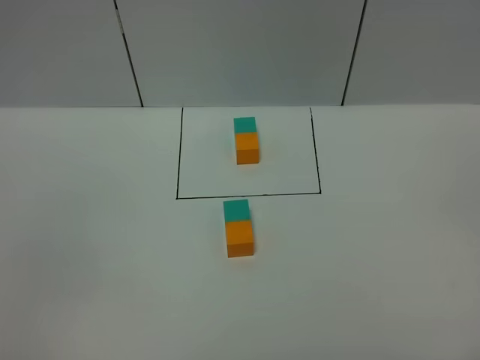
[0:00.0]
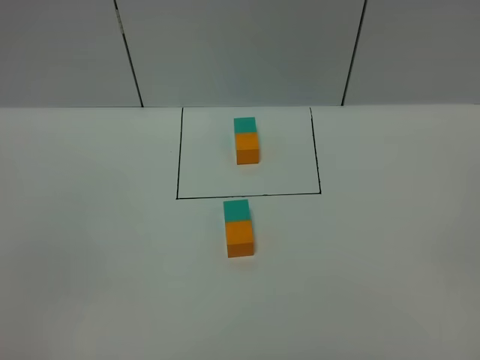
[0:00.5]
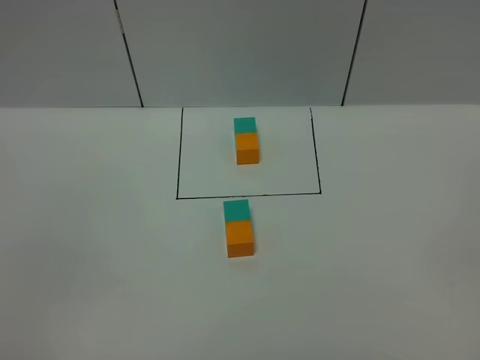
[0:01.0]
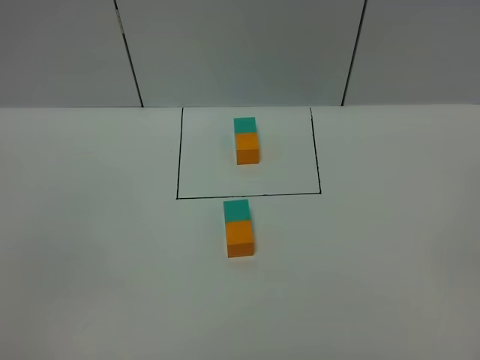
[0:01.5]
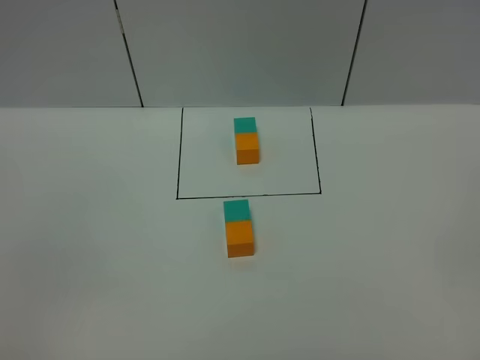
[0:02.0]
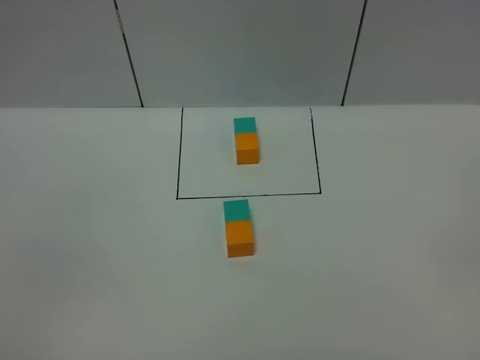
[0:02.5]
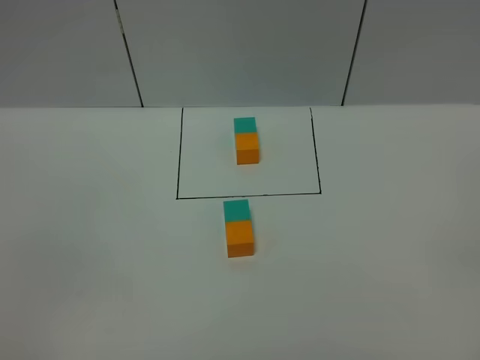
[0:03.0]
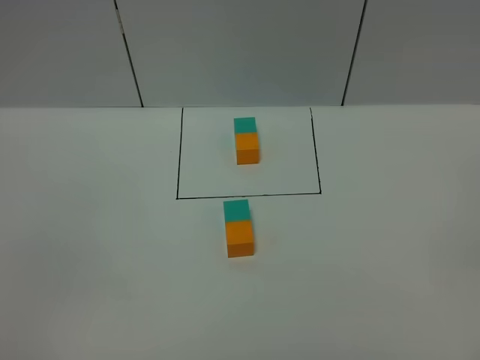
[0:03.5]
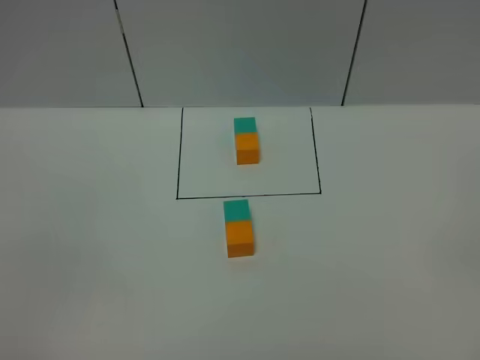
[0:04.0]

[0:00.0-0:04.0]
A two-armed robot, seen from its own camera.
Task of the whole recording: According to the building block template in front, assemble the scattered blocks together.
0:02.0 to 0:04.0: Both grippers stay about where they are.

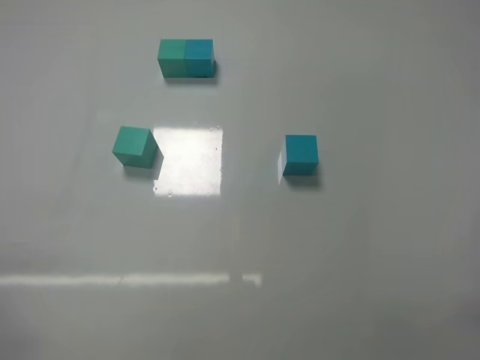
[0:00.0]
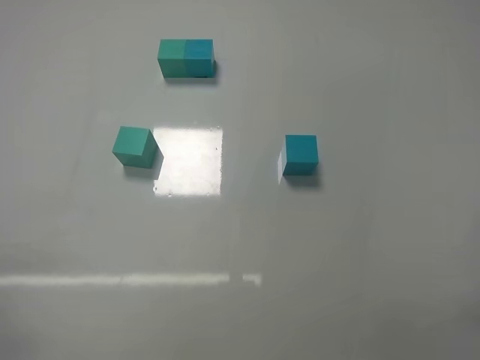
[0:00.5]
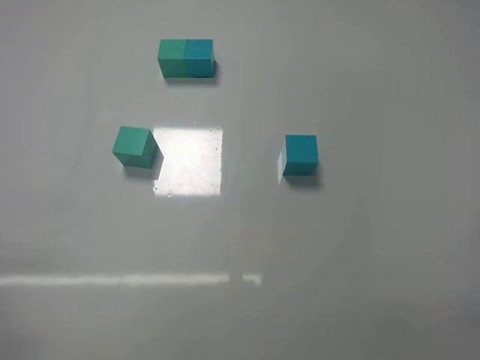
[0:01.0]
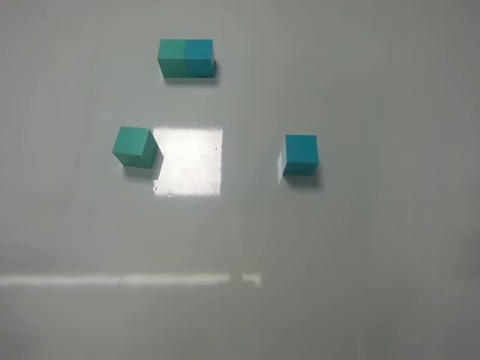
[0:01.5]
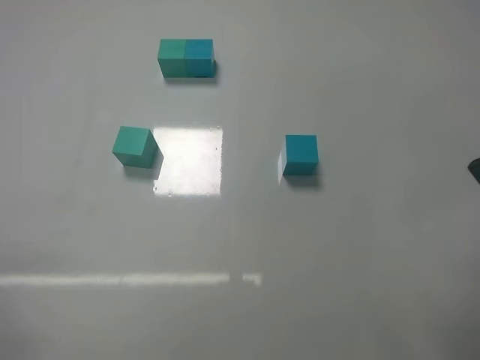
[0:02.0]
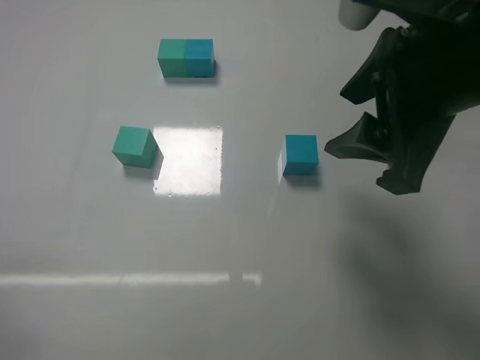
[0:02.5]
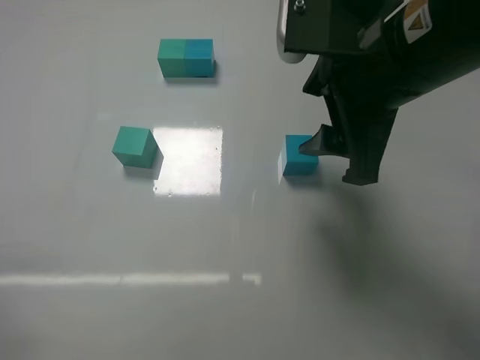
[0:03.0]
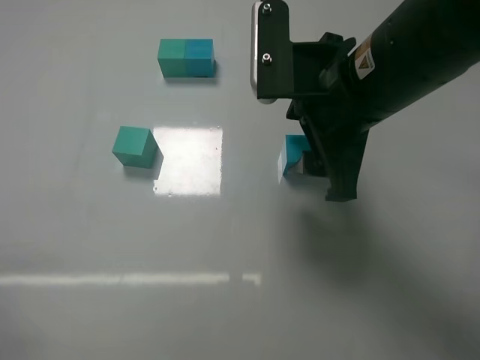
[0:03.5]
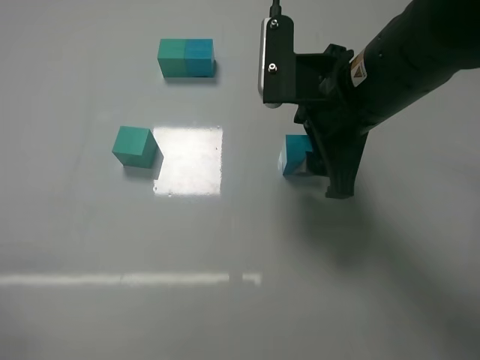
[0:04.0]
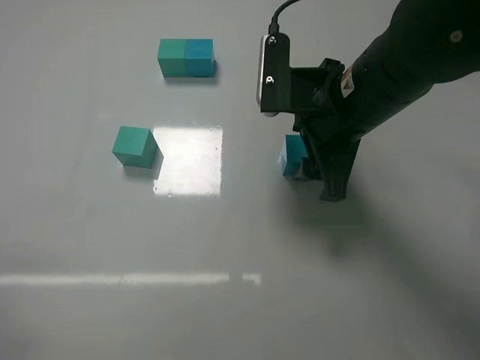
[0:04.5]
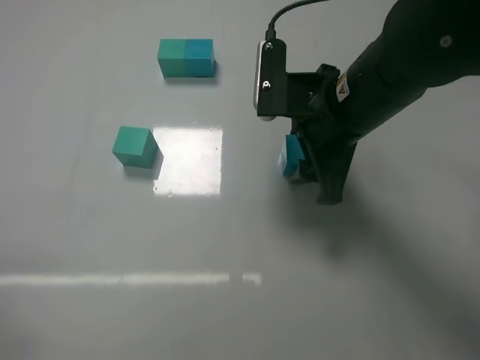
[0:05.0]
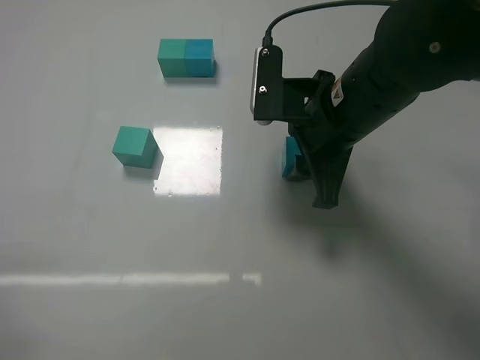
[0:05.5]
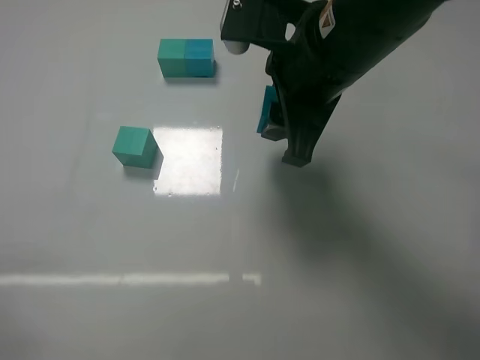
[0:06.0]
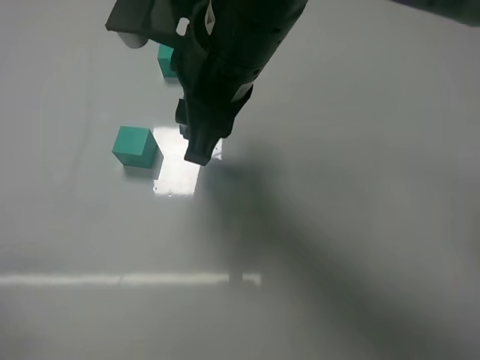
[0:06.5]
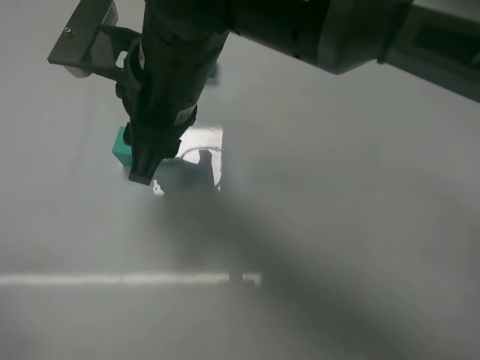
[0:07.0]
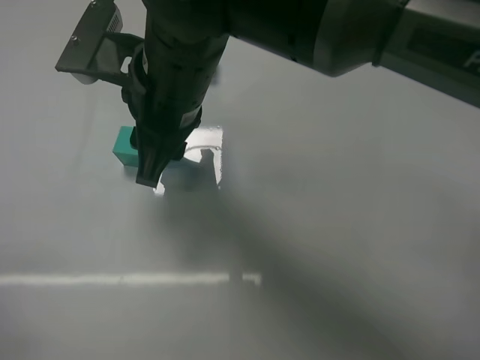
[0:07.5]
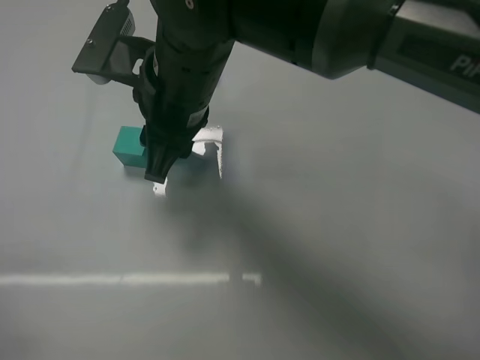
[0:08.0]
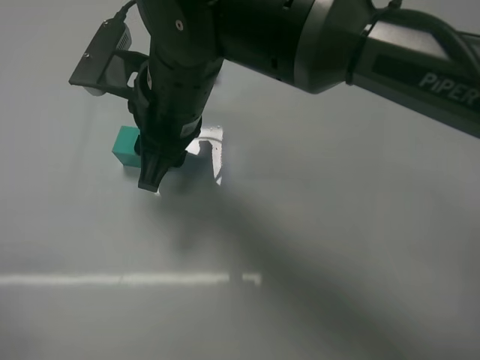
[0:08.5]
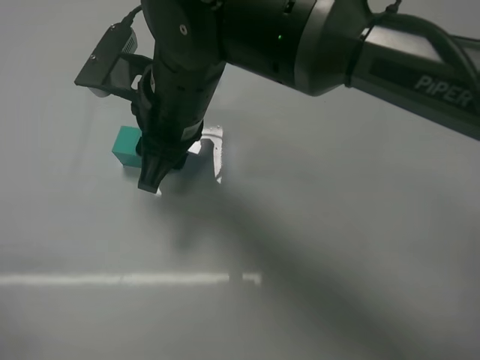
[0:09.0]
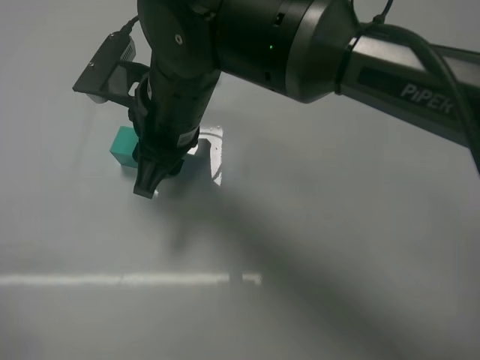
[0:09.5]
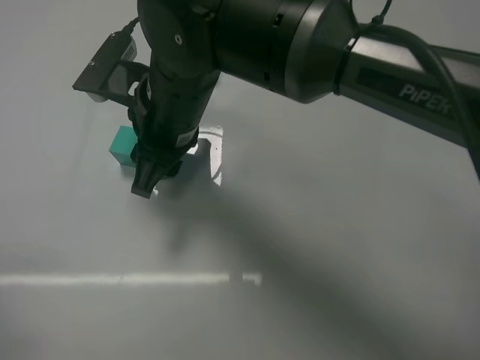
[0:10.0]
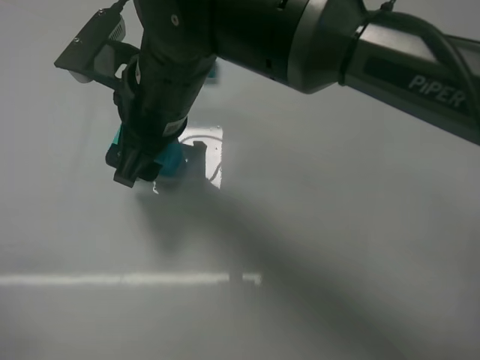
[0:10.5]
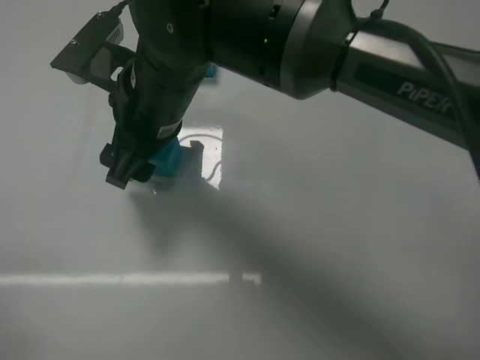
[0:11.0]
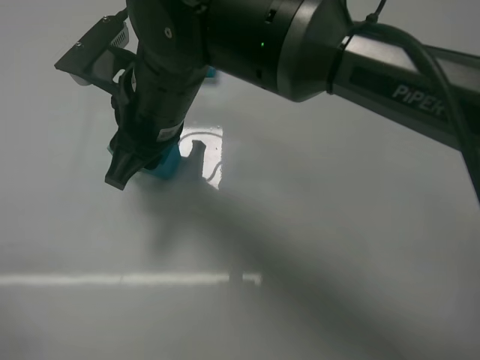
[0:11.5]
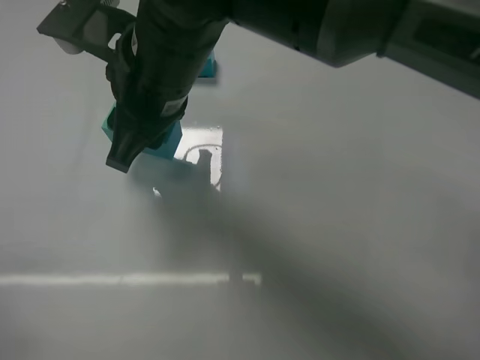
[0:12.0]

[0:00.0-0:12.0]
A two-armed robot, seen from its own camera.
Task of the whole recording: According to the building block template in front, assemble the scattered blocks together.
Step, 0:00.0 to 0:05.5: Grasp the blue block with right gripper.
Step, 0:06.0 to 0:10.0: Put the blue cube on the right of the green cube with the right gripper.
0:02.0 to 0:04.0: The right gripper heads forward and to the left, covering roughly 20 cm.
0:04.0 to 0:06.0: The right gripper ends up about 5 cm from where it was, and closes up.
0:06.0 to 0:08.0: The right gripper goes approximately 15 cm to the left.
0:08.0 to 0:10.0: The grippers stay close to where they were, moving slightly.
0:10.0 to 0:12.0: The right gripper changes place by about 5 cm, and opens, then closes again.

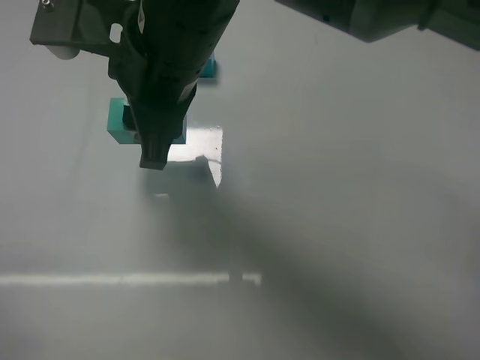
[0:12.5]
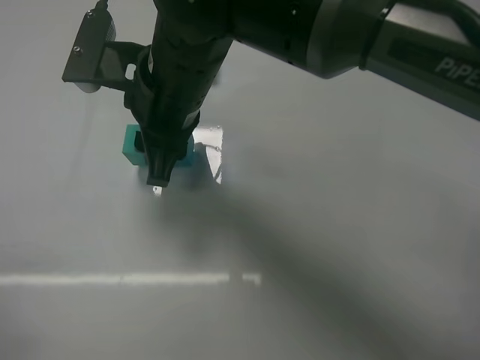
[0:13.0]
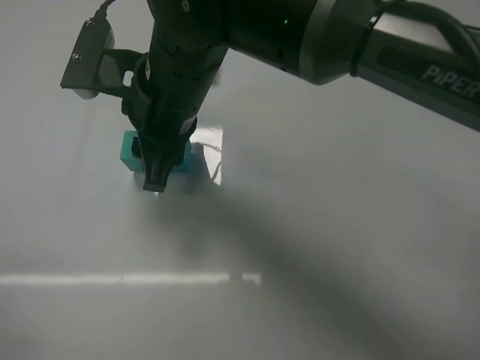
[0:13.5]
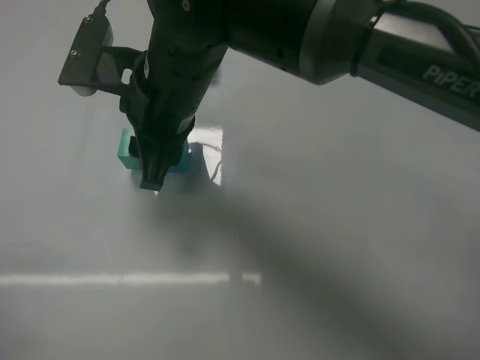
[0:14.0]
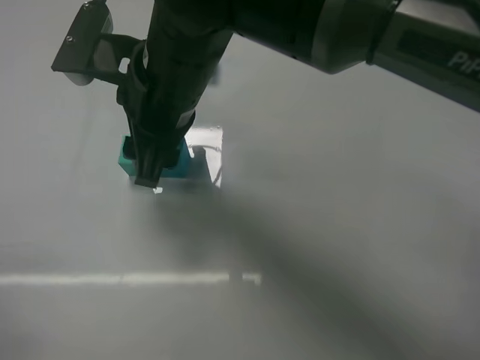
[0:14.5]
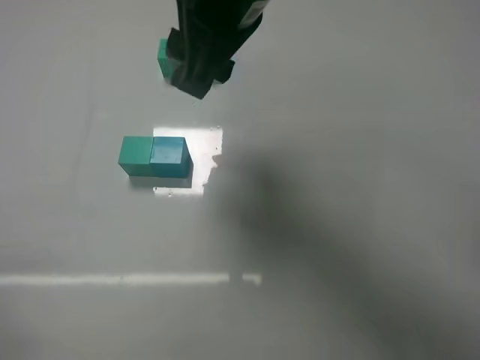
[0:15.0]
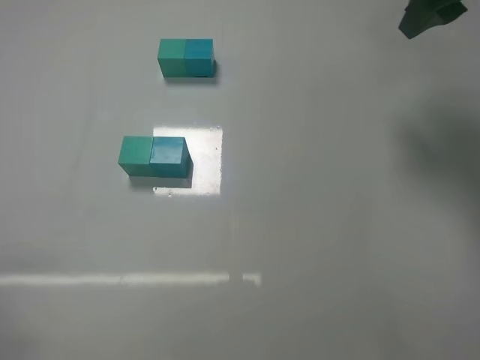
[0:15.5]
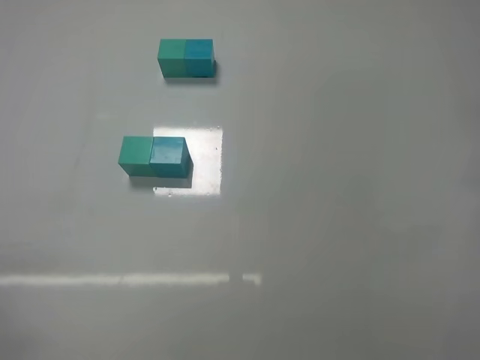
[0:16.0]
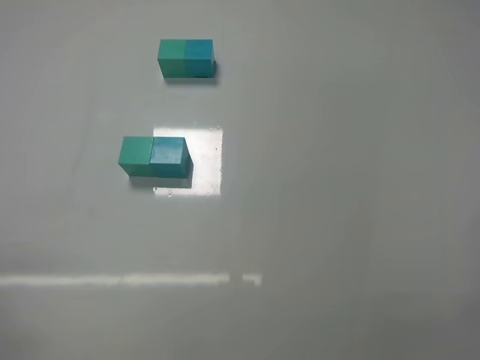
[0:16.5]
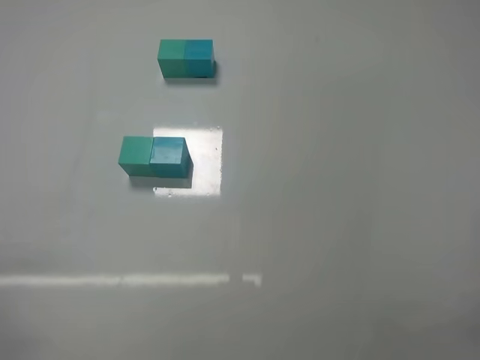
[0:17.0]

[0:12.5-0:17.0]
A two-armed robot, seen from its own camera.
Task of the whole recording: According to the building block template in front, assemble the scattered blocks together.
Step, 0:12.5 to 0:14.5: Put the blue cube and green cube in the center of the table with the right gripper.
0:12.5 to 0:14.5: The right gripper opens up.
0:14.5 to 0:17.0: The right gripper moves to the right and backward, approximately 40 cm.
